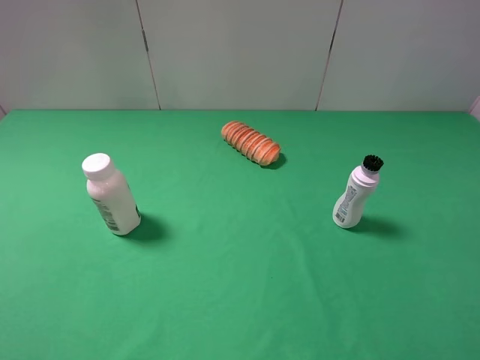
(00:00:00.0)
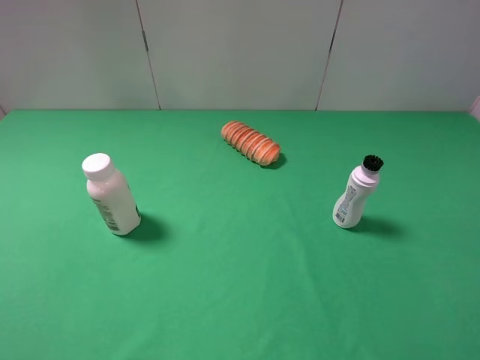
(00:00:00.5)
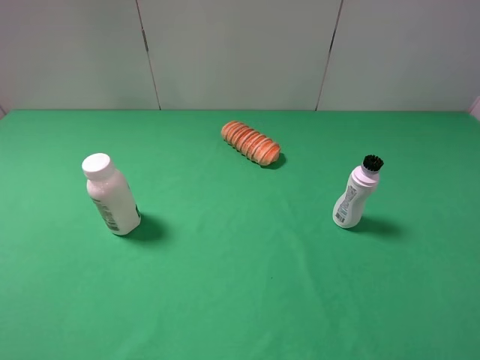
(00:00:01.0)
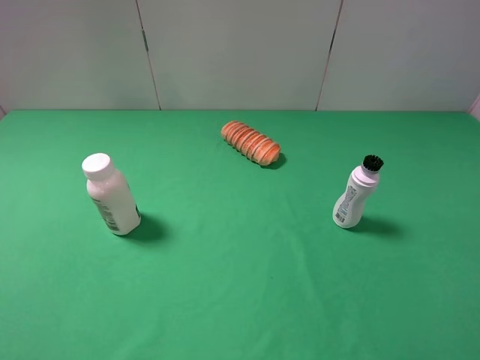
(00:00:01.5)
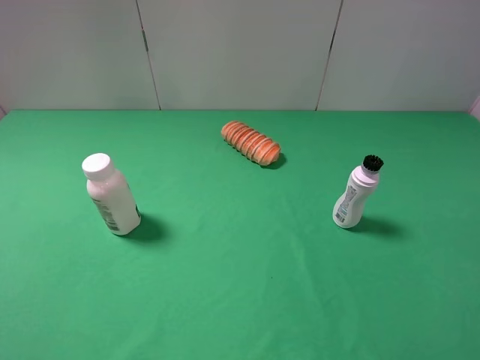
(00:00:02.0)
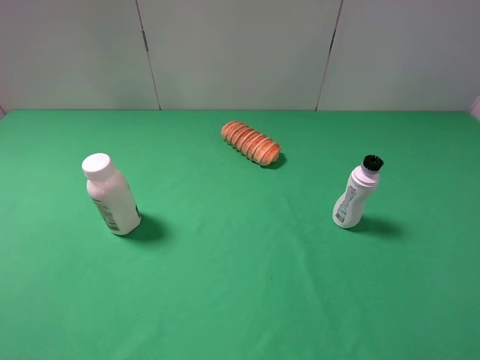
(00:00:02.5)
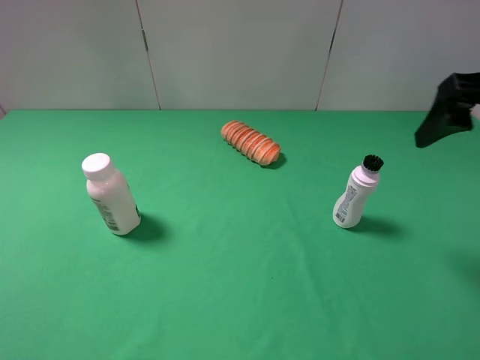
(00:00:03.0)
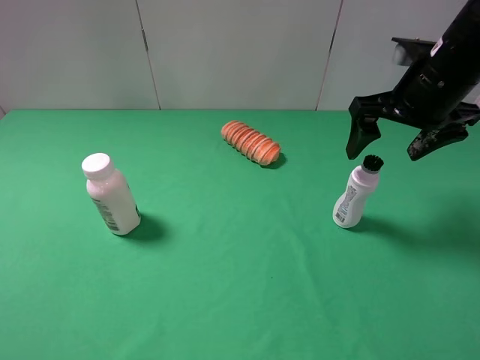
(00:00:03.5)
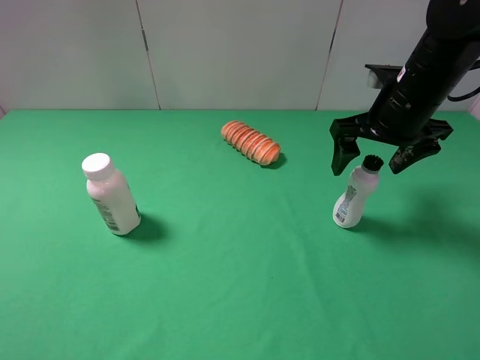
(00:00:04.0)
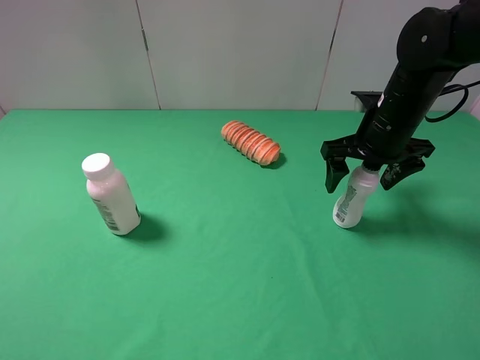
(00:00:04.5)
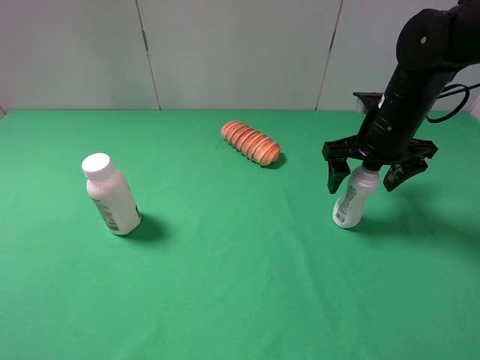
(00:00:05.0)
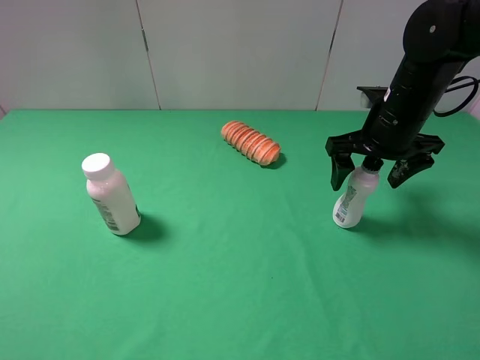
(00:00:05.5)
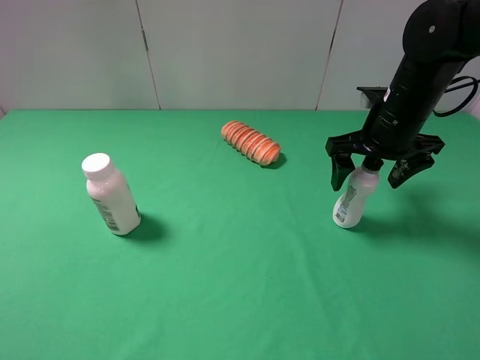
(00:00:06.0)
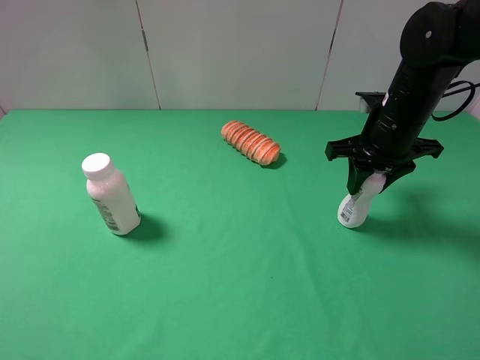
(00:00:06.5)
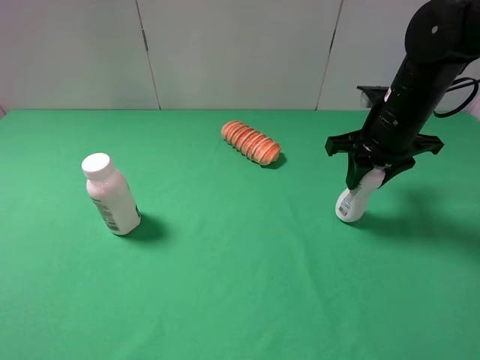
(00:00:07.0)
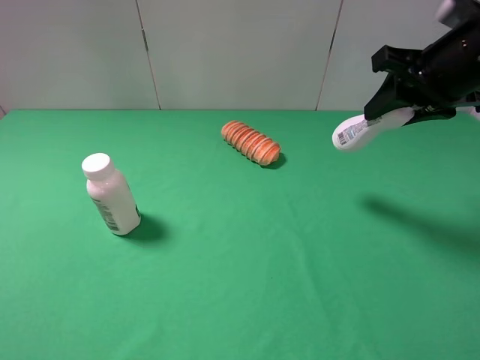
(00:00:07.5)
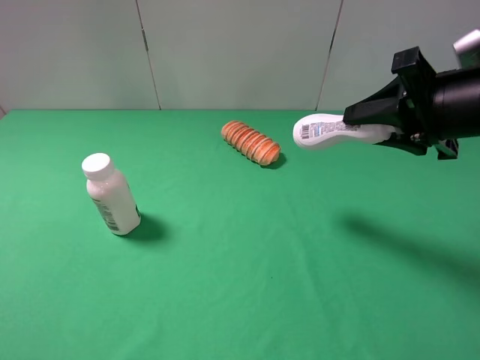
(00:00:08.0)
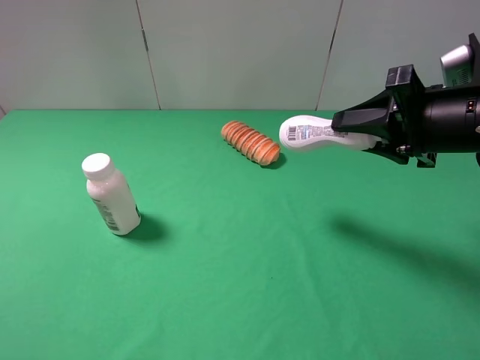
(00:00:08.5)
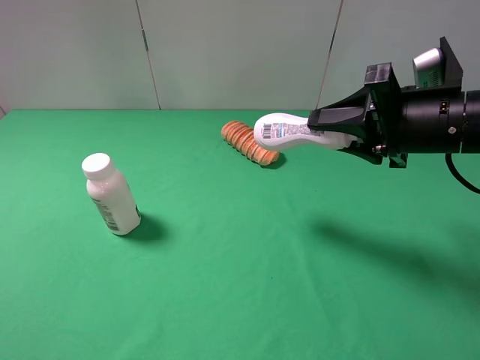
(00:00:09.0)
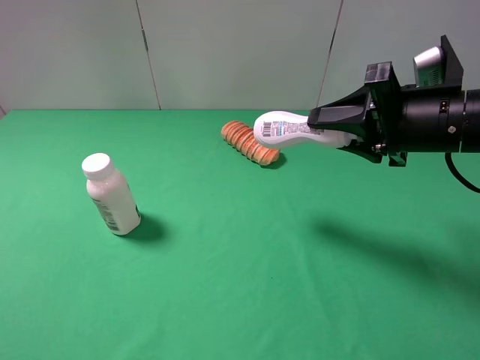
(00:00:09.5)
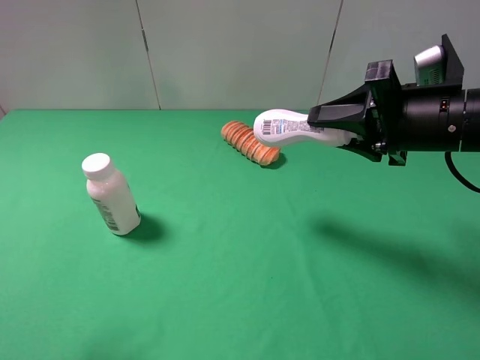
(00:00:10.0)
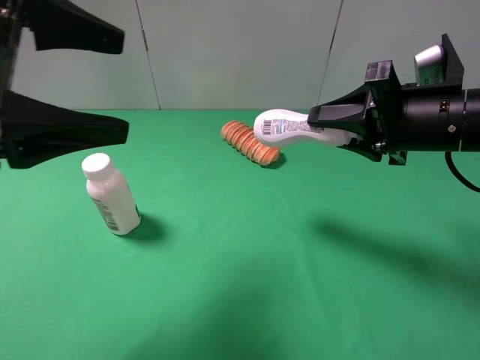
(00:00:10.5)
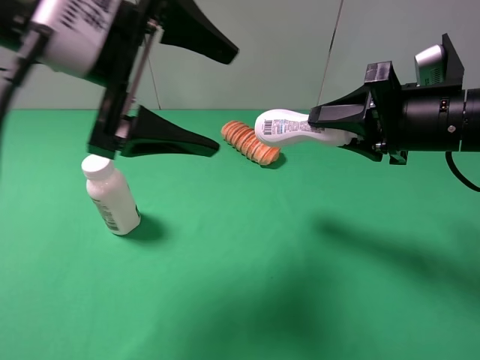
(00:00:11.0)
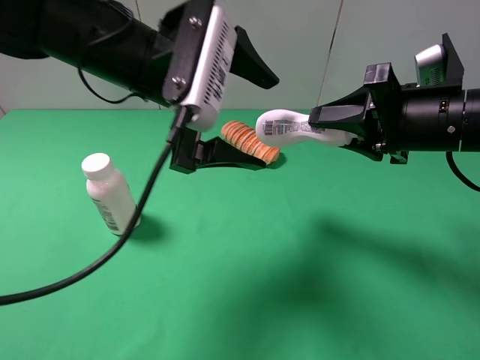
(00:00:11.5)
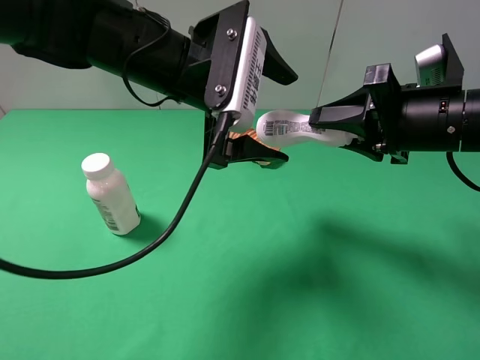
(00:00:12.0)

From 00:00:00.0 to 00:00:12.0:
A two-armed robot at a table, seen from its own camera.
Task of the whole recording: use the right gripper to pick up the item and transfer it from the right gripper to the left gripper.
Step, from 00:00:00.0 to 00:00:06.5: Use the right gripper to grab the shampoo on the right side of the table.
From 00:00:00.0 to 00:00:02.0: Both grippers stay about where they are.
From 00:00:02.0 to 00:00:04.0: The right gripper goes roughly 30 cm forward.
From 00:00:04.0 to 00:00:06.0: The grippers move only a little.
From 00:00:06.0 to 00:00:08.0: The right gripper goes roughly 10 cm backward and upward, and closes its fingers.
From 00:00:08.0 to 00:00:10.0: The left gripper shifts some 5 cm forward.
From 00:00:10.0 to 00:00:12.0: The left gripper moves forward and to the right, about 30 cm.

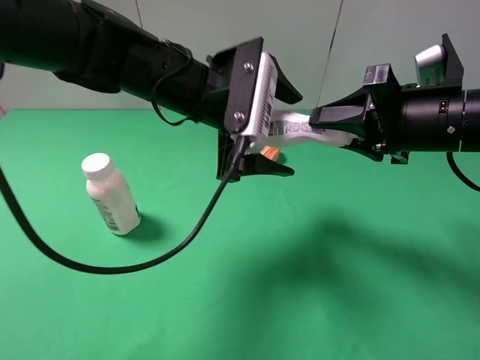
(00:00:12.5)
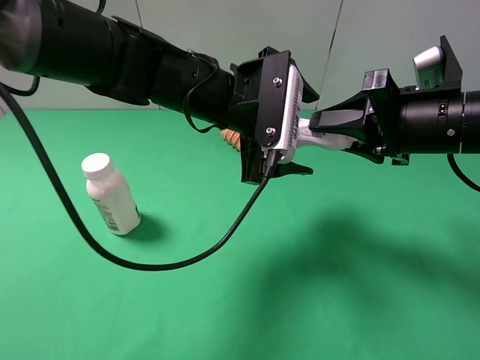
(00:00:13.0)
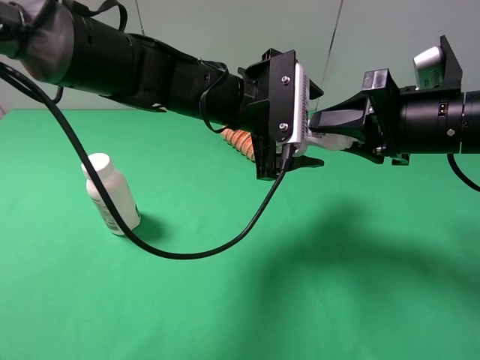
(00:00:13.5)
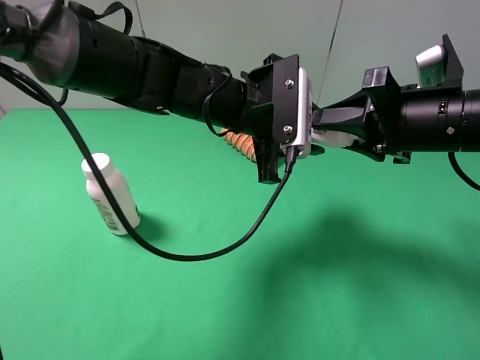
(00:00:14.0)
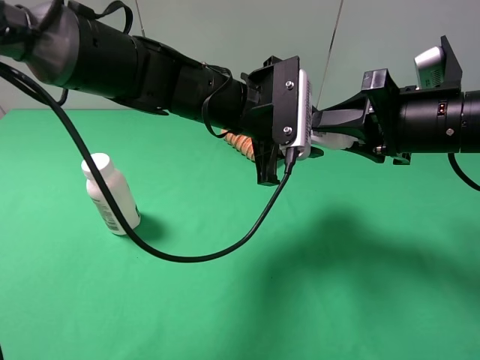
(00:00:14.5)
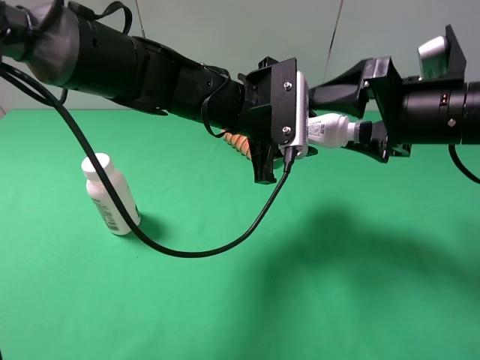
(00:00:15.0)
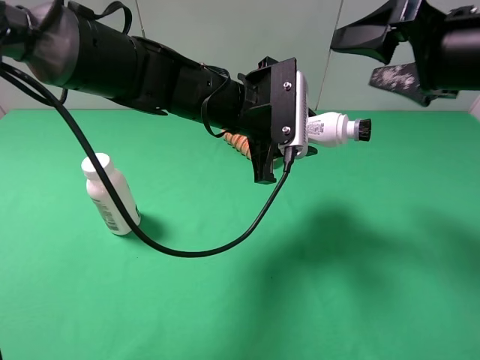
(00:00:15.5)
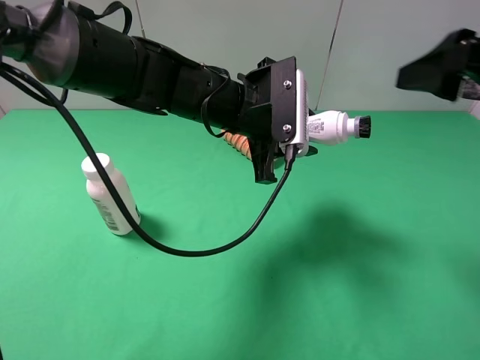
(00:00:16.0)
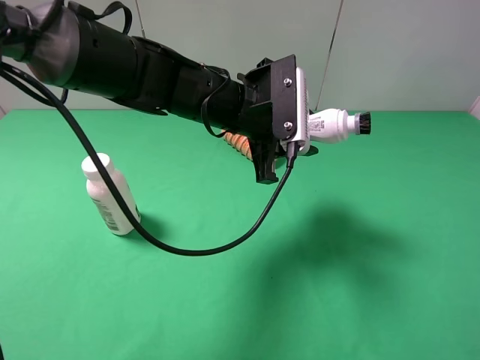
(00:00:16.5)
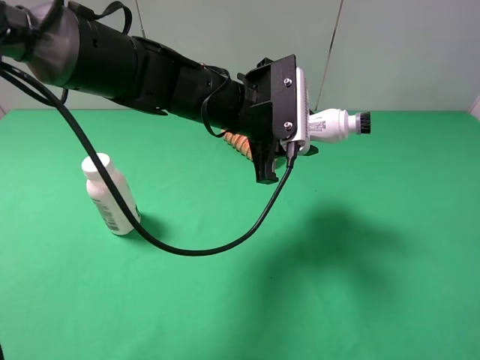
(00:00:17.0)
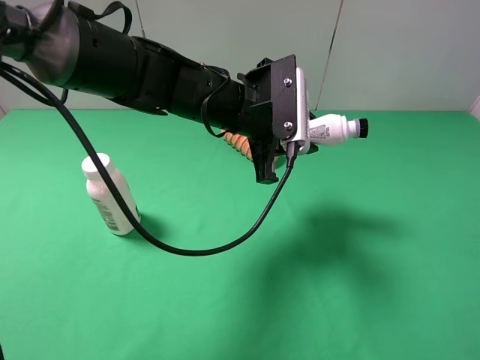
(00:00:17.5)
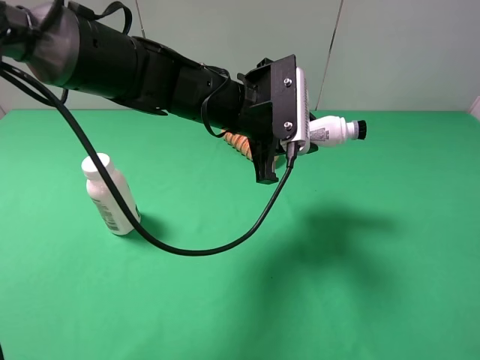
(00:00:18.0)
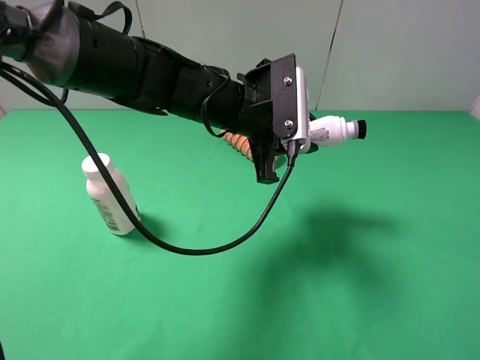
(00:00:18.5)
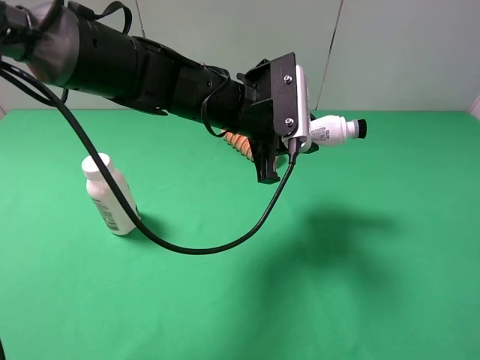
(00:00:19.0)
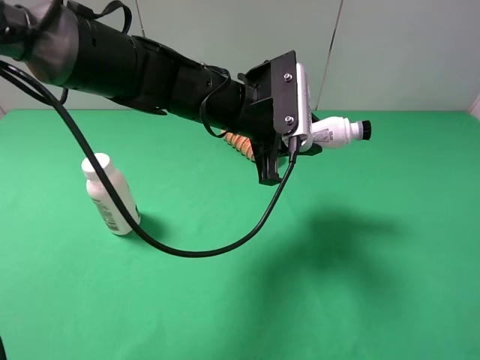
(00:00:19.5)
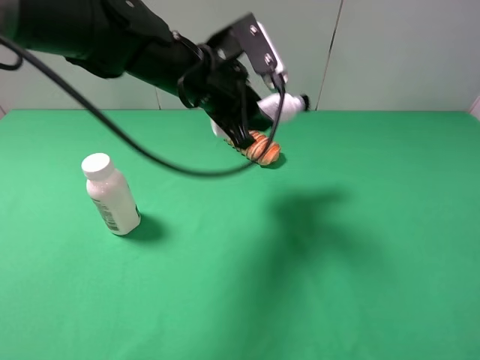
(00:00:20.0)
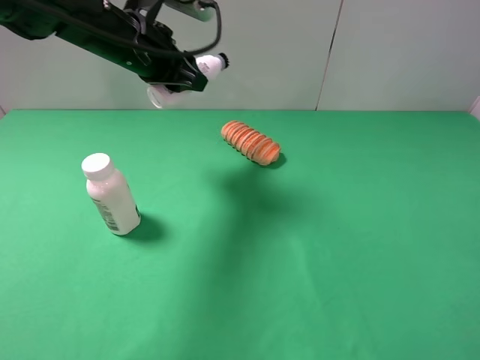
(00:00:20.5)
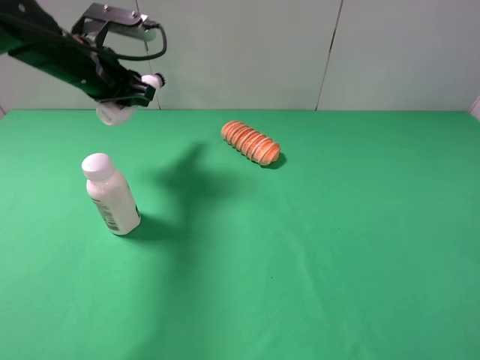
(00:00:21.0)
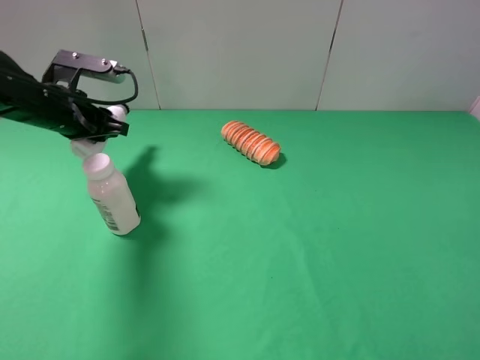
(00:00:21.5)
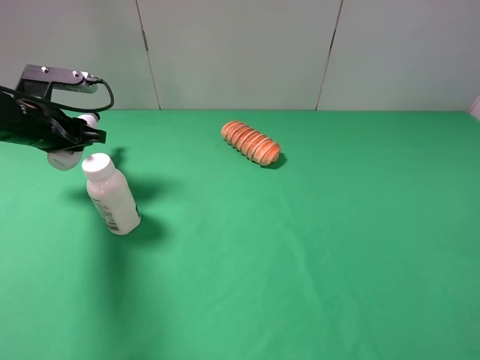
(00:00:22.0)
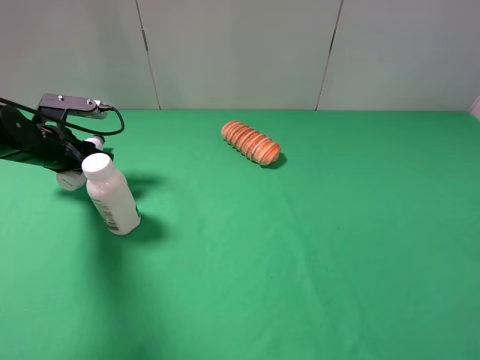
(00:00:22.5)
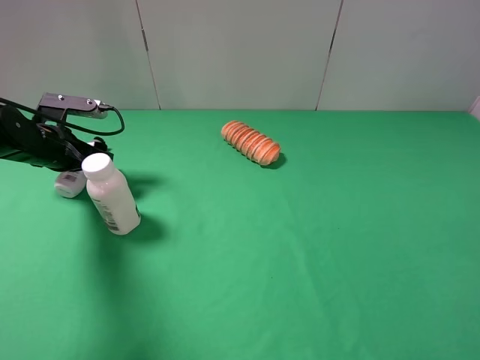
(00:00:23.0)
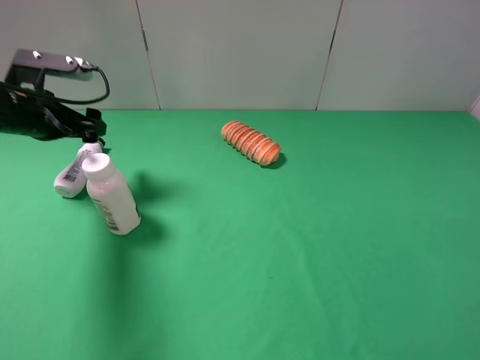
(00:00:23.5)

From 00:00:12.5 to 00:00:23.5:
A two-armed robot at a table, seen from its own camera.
Task of the whole recording: use the right gripper to pick up the item and transfer it from the right gripper to the left gripper.
Step, from 00:00:12.5 to 00:00:14.5: Pass the shampoo to the left gripper.
Step, from 00:00:15.0 to 00:00:23.0: The left gripper places shampoo on the left side of the table.
From 00:00:12.5 to 00:00:14.5: The left gripper closes.
From 00:00:14.5 to 00:00:16.0: The right gripper travels upward by some 10 cm, and opens its fingers.
From 00:00:16.0 to 00:00:18.0: The right gripper heads backward, covering roughly 15 cm.
From 00:00:18.0 to 00:00:20.0: The left gripper ends up roughly 5 cm from where it was.
From 00:00:20.0 to 00:00:21.5: The left gripper is displaced to the left by approximately 20 cm.
From 00:00:21.5 to 00:00:23.5: The left gripper moves approximately 5 cm downward and comes back, and opens.

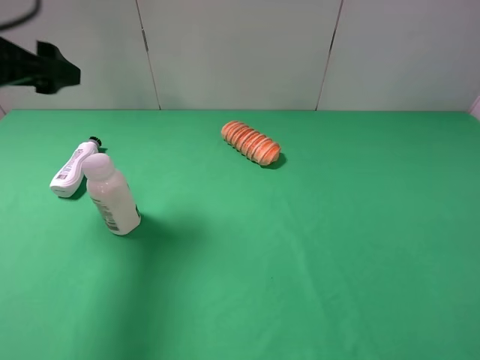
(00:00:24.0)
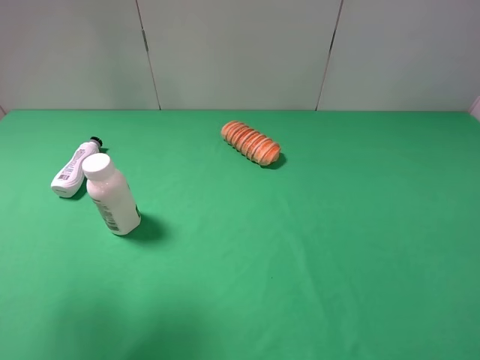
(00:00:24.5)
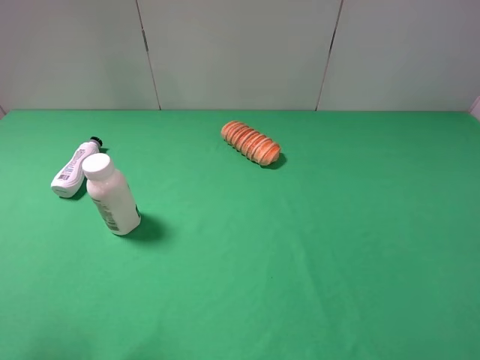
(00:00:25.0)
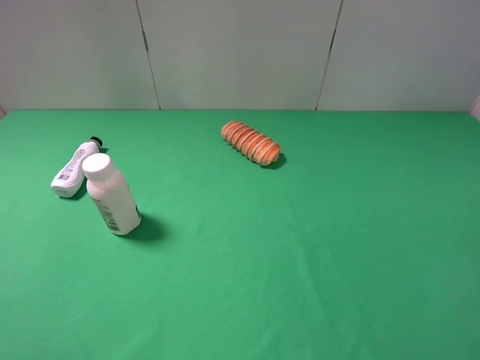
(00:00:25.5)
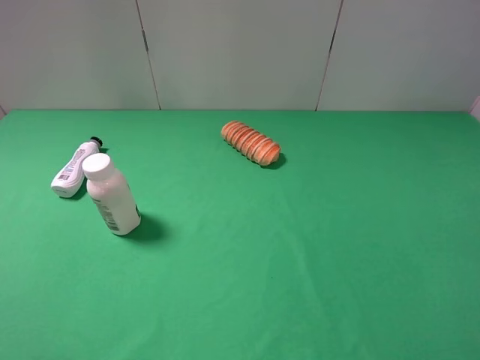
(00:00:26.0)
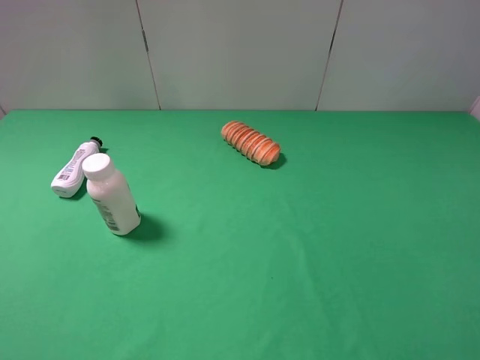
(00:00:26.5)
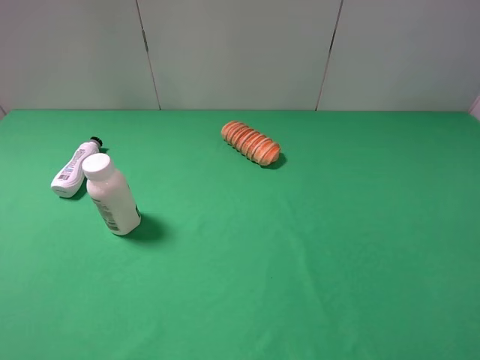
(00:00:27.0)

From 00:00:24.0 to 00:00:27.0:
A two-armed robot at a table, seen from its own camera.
Task of the whole recording: use the right gripper to pick up the item and transfer it from the right gripper to the left gripper.
From 00:00:24.0 to 00:00:25.5: The left gripper is displaced backward by some 25 cm.
